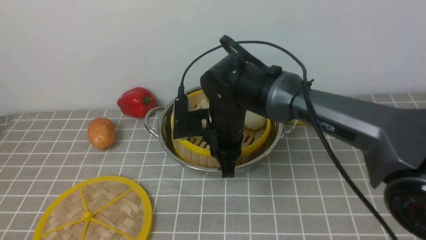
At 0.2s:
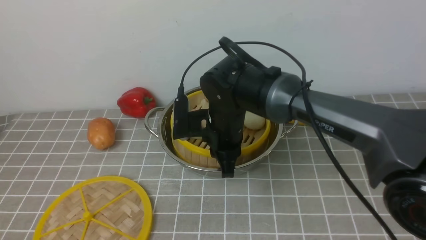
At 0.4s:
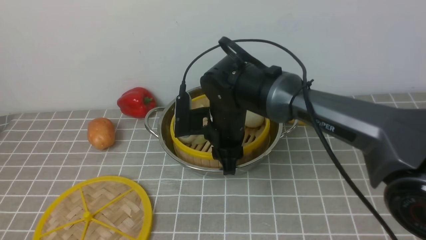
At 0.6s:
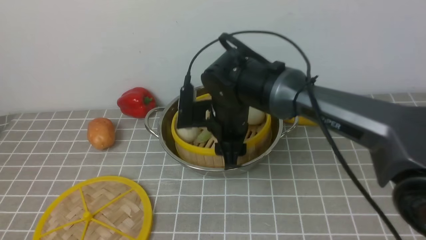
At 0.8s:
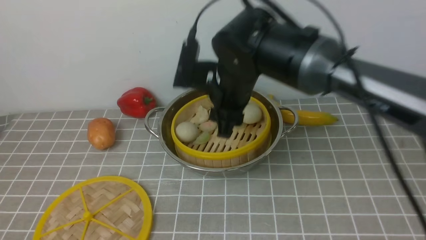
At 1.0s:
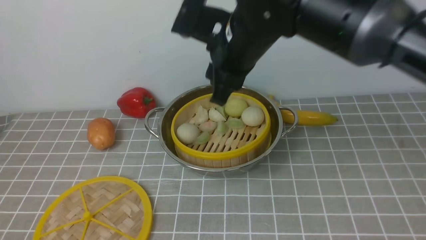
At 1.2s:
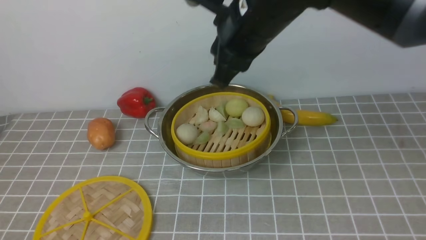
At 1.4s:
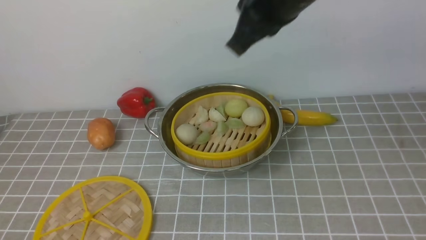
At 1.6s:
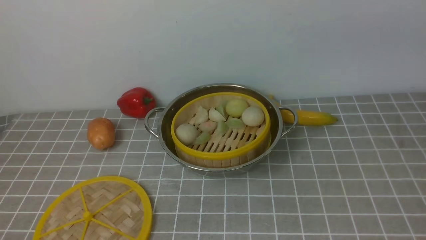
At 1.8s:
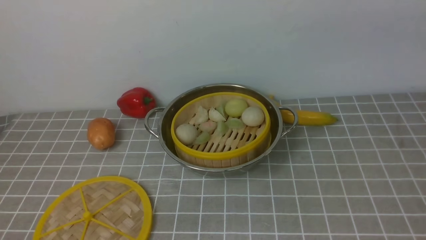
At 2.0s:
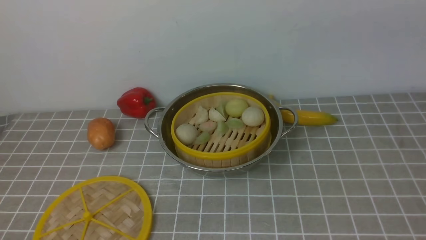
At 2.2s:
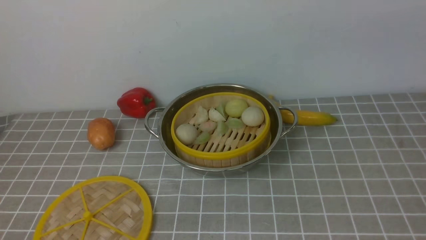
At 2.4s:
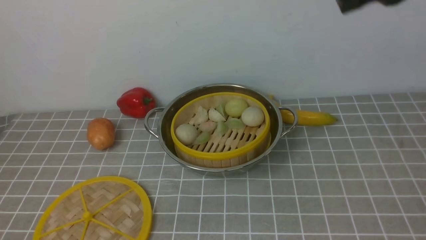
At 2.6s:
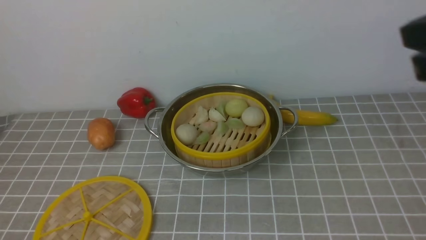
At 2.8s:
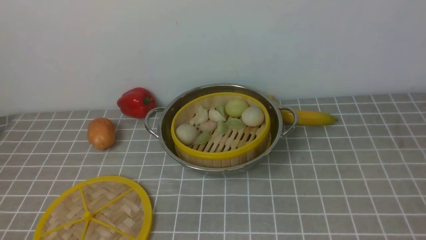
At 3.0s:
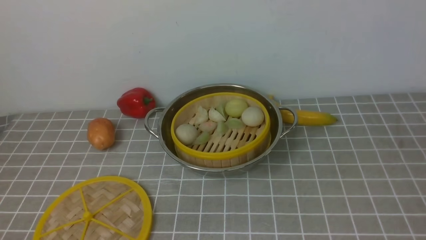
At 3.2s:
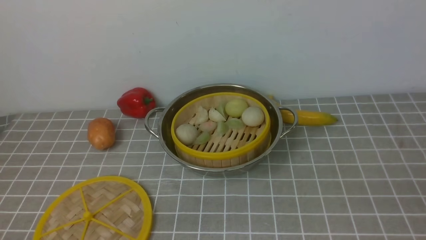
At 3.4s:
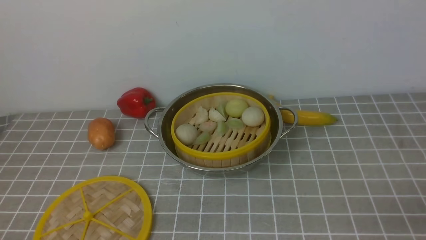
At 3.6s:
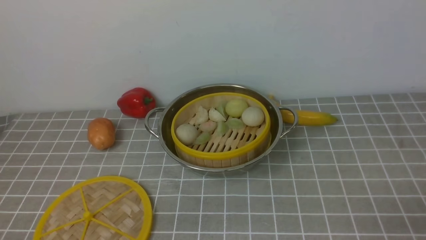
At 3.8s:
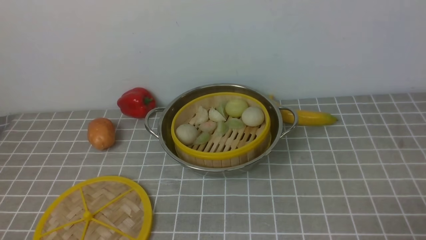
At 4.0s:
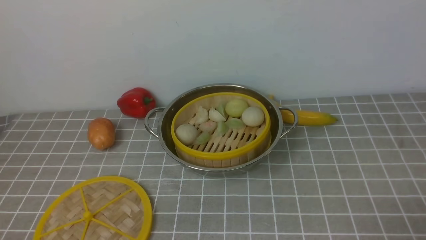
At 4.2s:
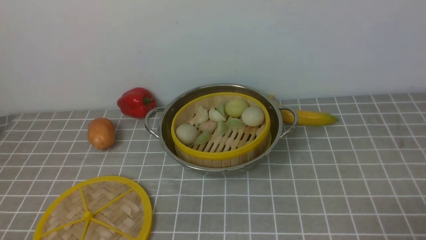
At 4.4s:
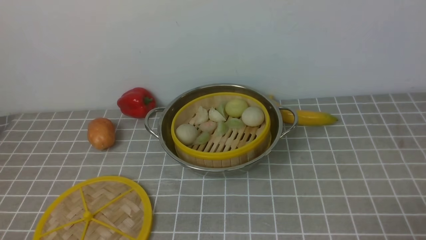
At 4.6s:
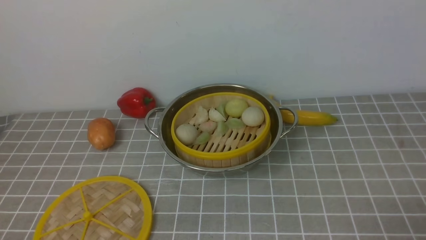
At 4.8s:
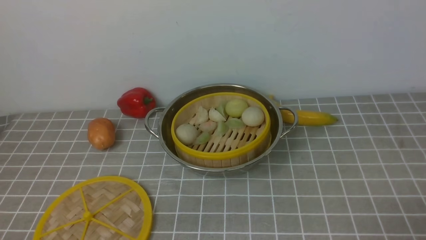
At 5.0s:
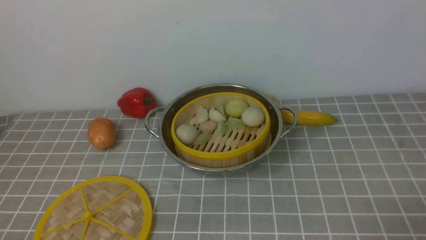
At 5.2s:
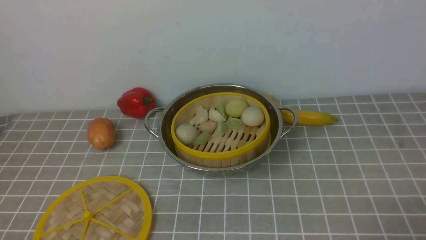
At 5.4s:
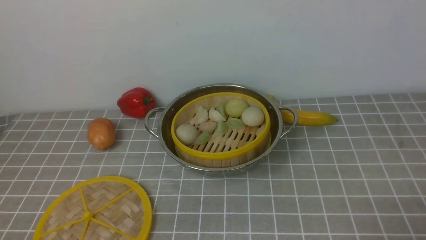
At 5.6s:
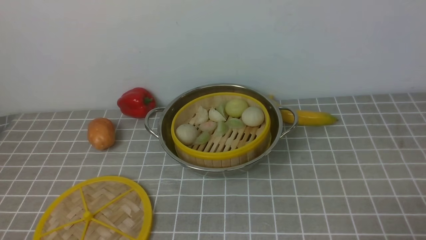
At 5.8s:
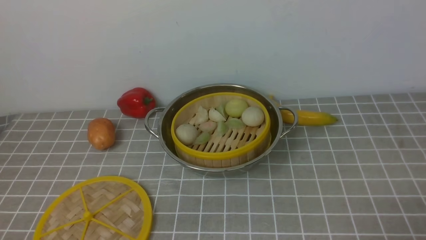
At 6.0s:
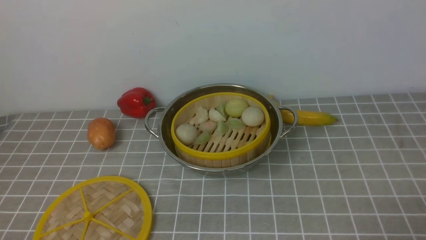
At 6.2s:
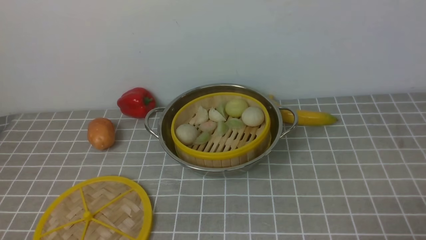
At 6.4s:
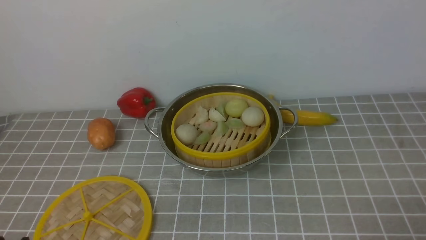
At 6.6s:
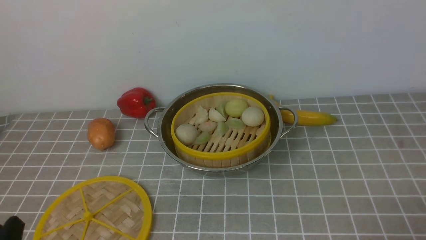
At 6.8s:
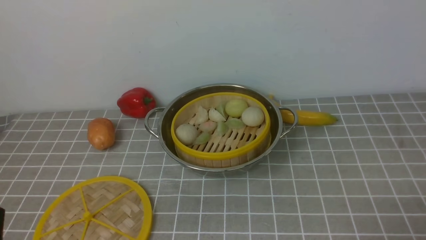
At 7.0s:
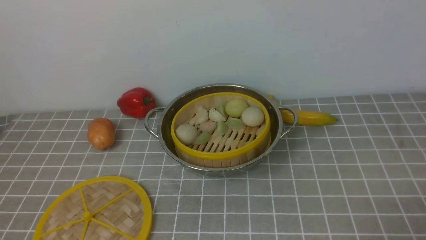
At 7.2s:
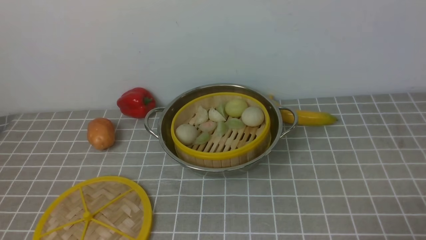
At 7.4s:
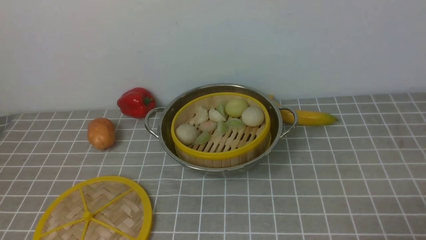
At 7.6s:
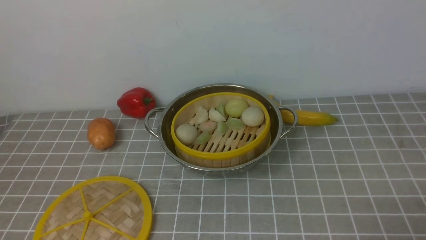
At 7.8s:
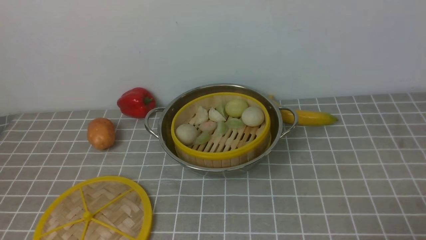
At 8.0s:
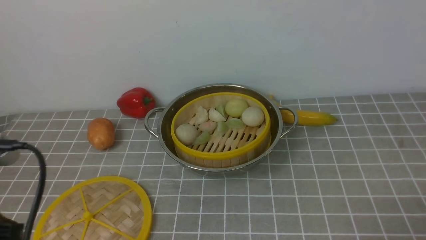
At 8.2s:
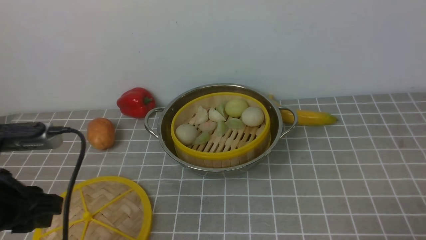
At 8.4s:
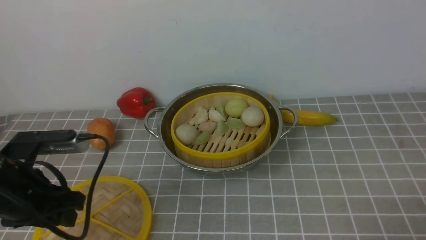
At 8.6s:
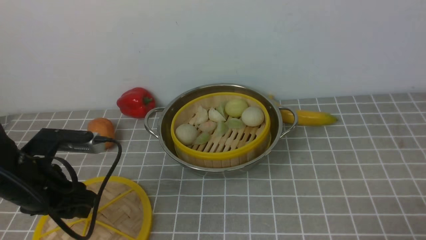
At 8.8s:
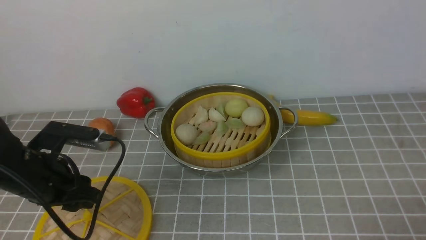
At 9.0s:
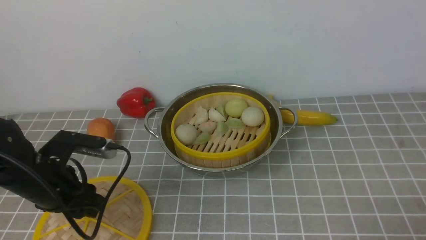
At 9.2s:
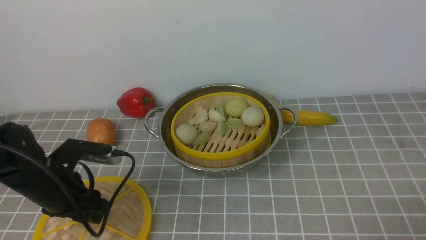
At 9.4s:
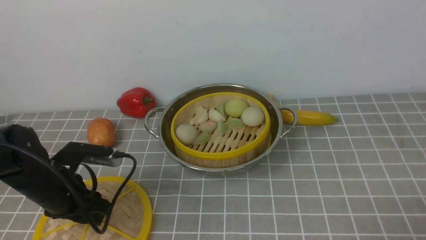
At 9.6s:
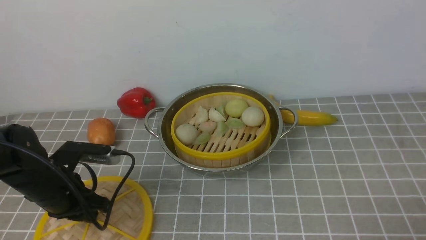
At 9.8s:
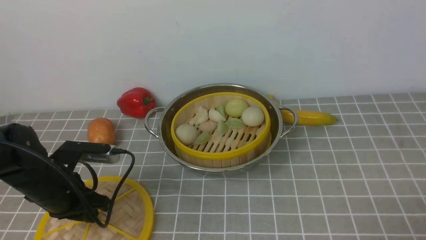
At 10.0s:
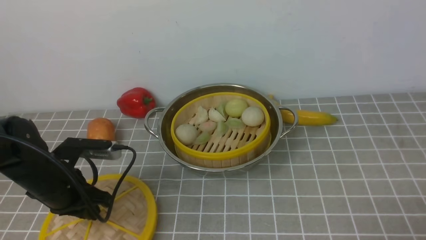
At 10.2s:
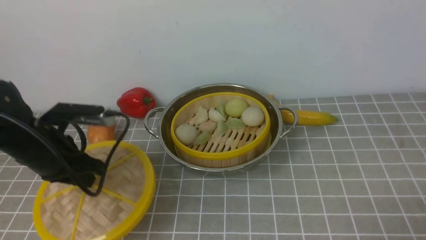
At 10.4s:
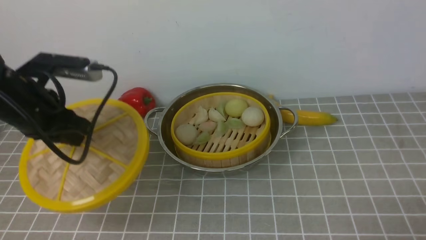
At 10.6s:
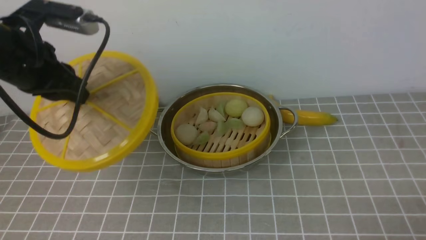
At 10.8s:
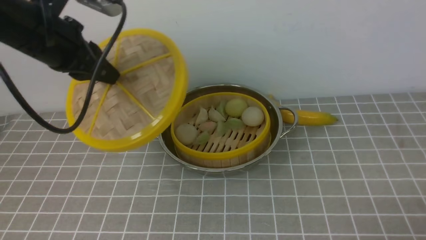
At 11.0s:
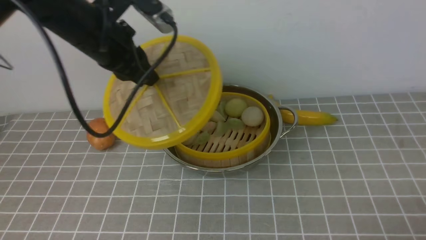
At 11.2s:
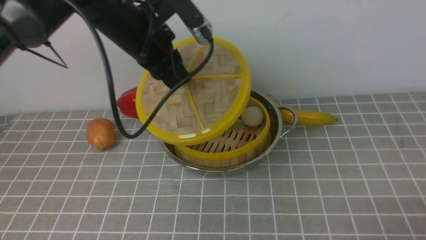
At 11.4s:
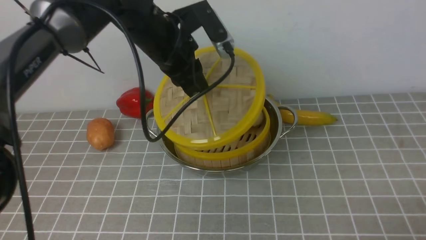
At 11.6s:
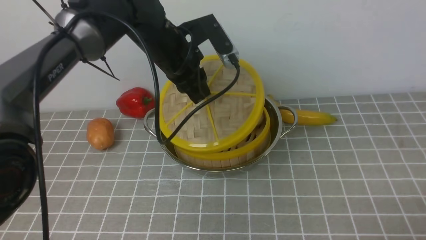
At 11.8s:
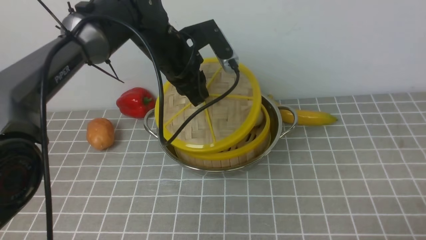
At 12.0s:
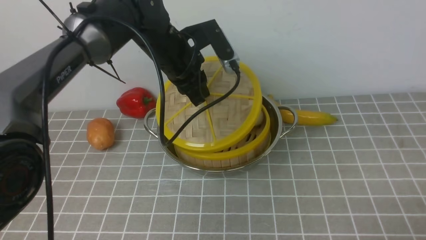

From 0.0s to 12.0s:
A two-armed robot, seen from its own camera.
Task of the whole recording: place the steamer in the pot on the grey tablecloth, and put the lid on the steamer.
Step, from 0.8s to 10.0s: use the left arm to lift the lid of the steamer.
From 0.0s to 1.6s: The right gripper goes approximately 30 cm upward and to the right, and opens, then closes again.
From 7.6s to 9.0s: The left gripper shifts some 25 cm forward and downward, and opens.
From 9.0s to 10.4s: The left gripper moves upward, about 10 cm, and closes.
From 10.4s to 12.0s: The left gripper is displaced to the right and forward by about 20 cm.

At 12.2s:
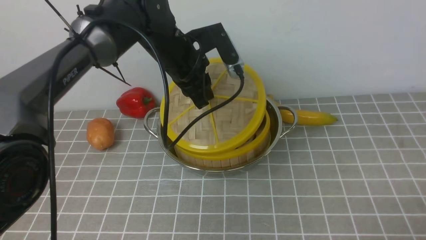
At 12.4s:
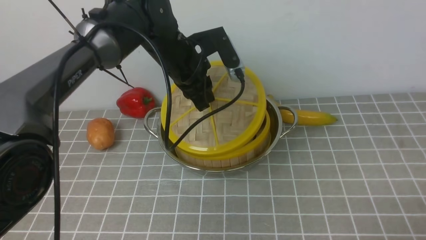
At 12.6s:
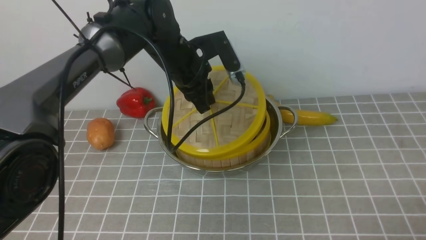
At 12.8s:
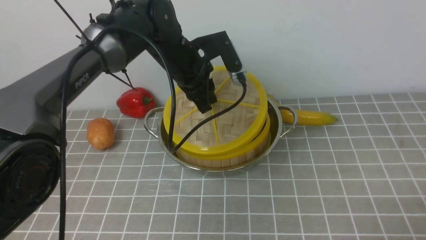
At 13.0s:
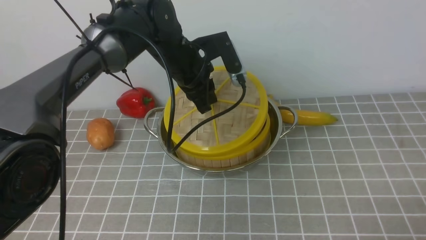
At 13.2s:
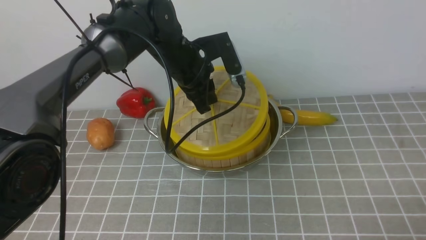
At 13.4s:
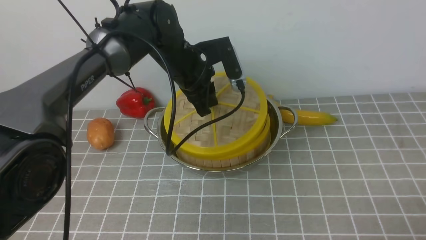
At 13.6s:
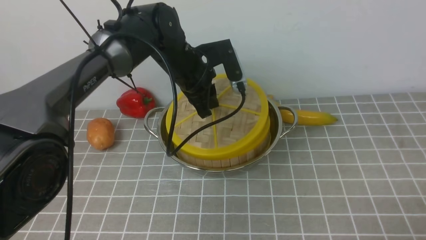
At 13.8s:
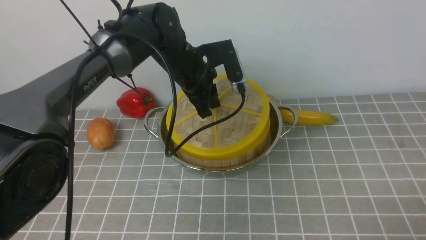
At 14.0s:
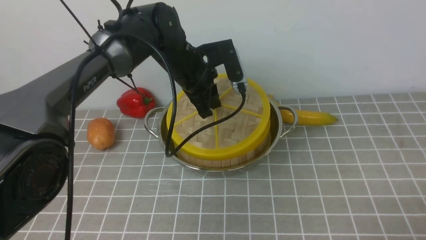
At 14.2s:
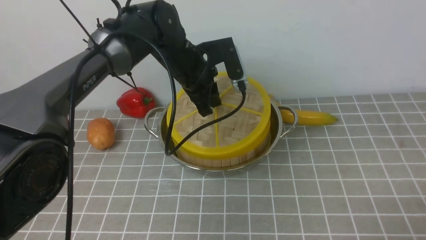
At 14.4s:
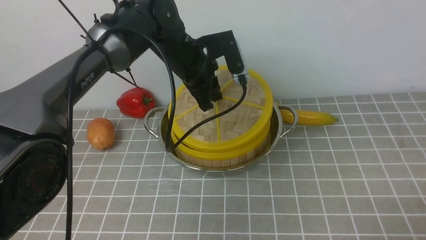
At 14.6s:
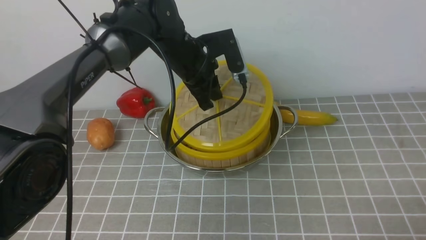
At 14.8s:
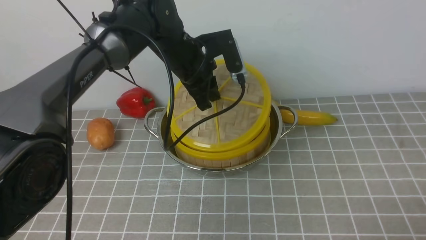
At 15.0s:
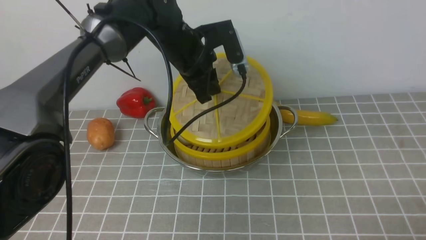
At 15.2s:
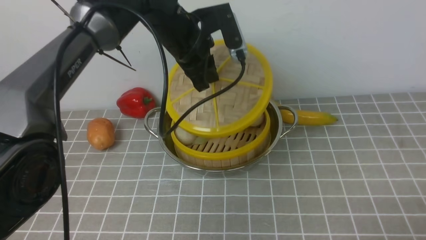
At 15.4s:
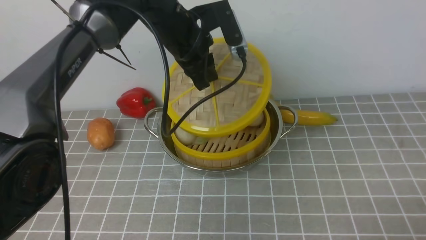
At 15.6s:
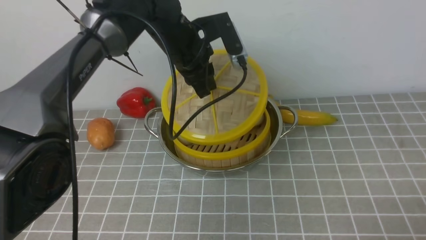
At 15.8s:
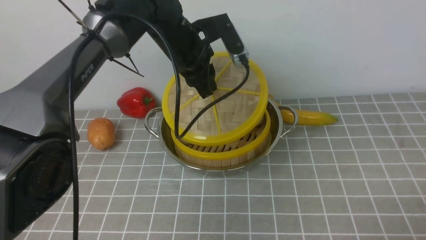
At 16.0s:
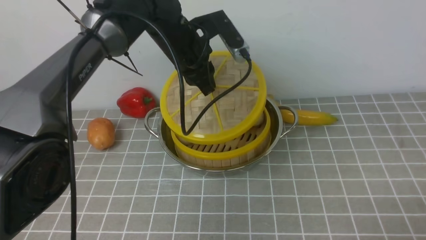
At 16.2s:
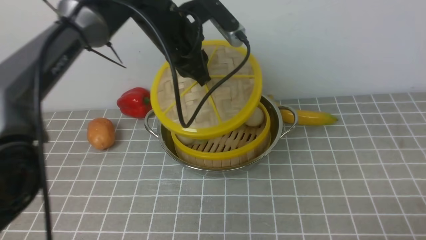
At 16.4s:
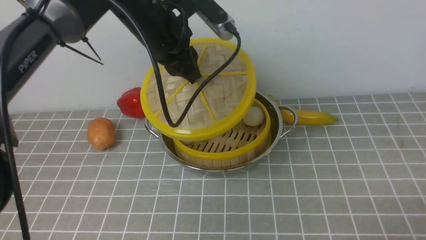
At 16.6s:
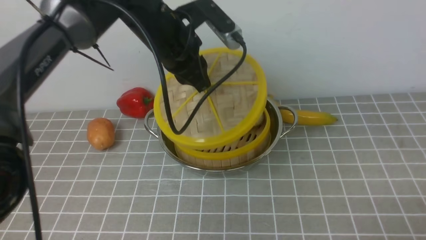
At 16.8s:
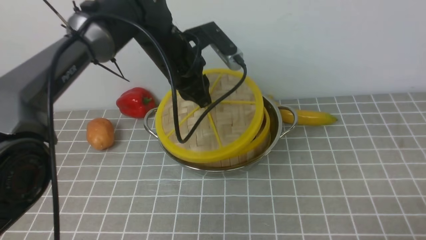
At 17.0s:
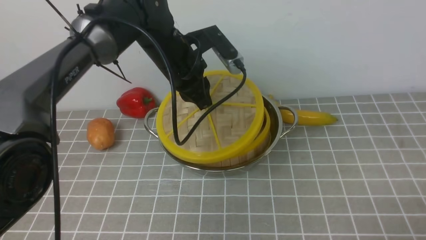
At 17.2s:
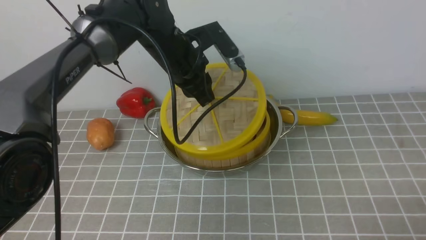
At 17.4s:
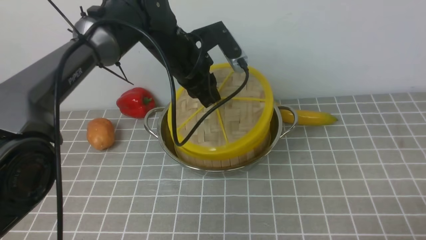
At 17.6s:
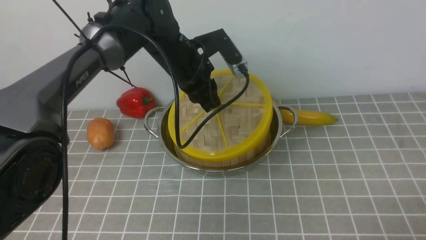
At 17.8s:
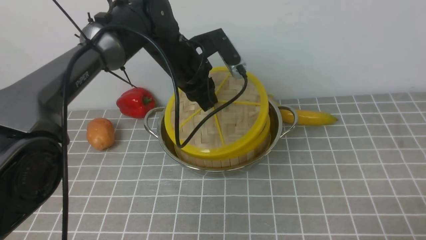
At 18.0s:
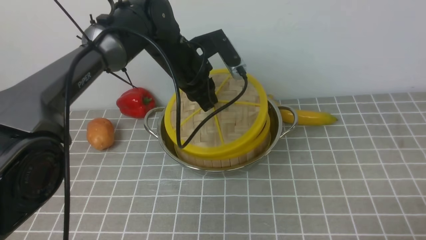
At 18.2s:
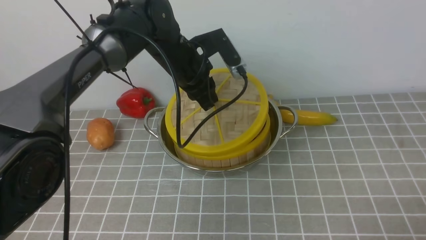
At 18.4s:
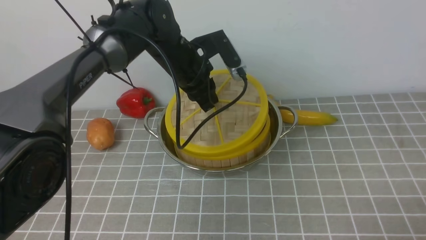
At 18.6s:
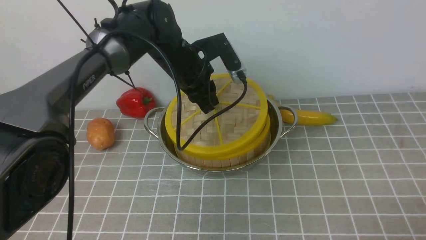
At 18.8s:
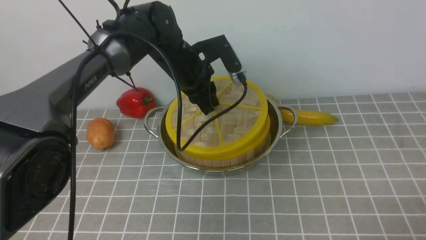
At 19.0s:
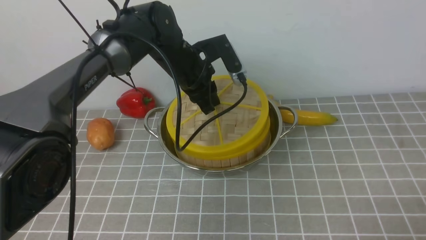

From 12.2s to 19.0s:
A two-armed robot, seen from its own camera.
Task of the whole recording: place the steamer in the pot on the grey tablecloth, and put the lid on the steamer.
From 12.2s to 15.0s: There are only small adjustments of the grippers.
From 16.2s to 17.6s: The left gripper travels downward by roughly 5 cm.
From 17.6s to 19.0s: The grippers move only a little.
